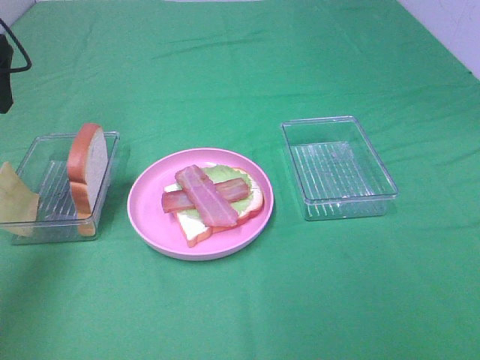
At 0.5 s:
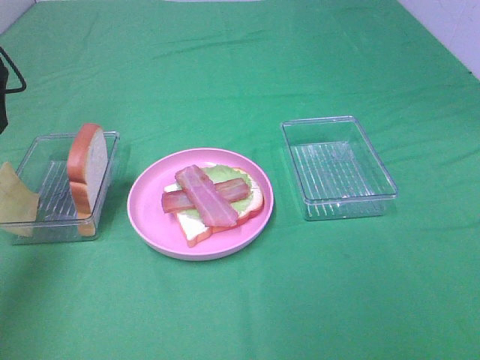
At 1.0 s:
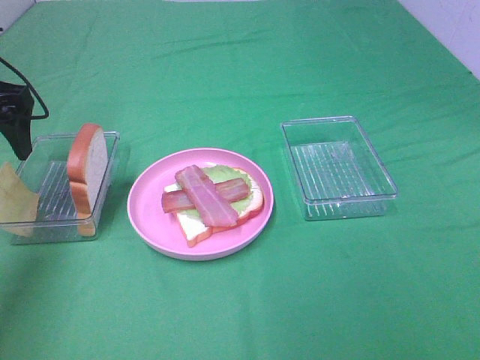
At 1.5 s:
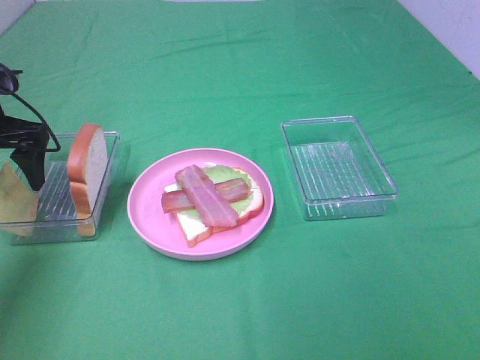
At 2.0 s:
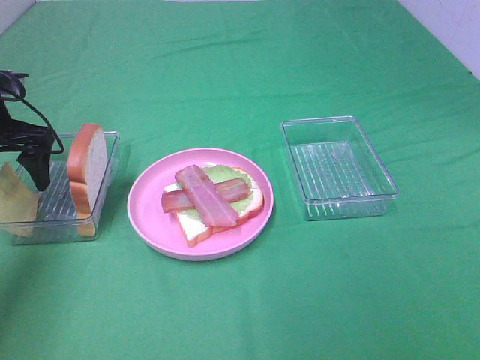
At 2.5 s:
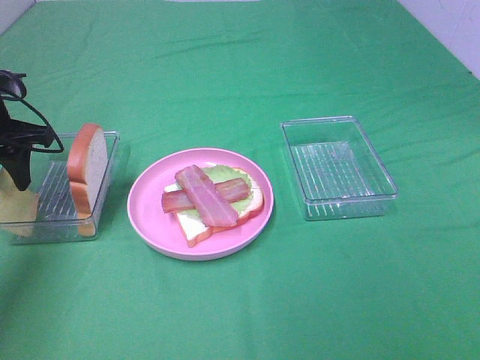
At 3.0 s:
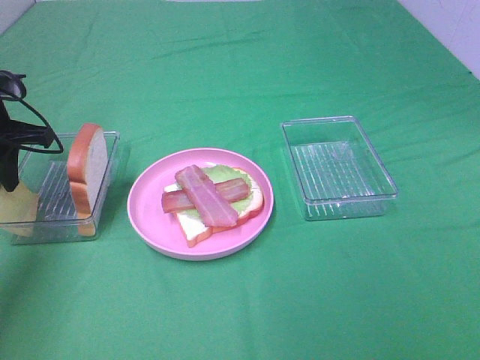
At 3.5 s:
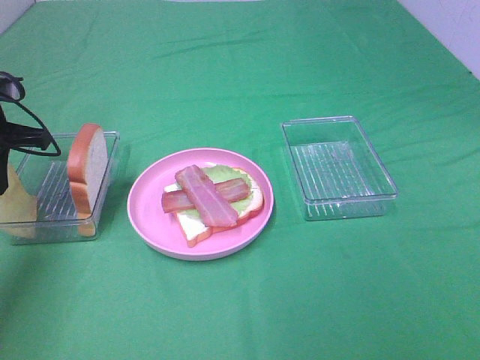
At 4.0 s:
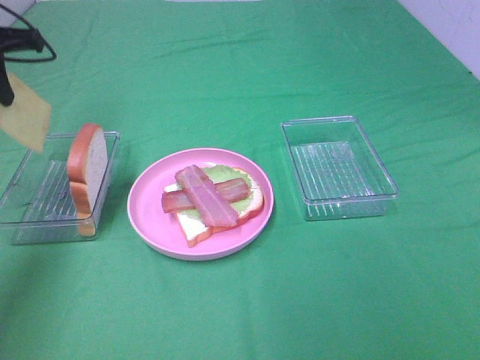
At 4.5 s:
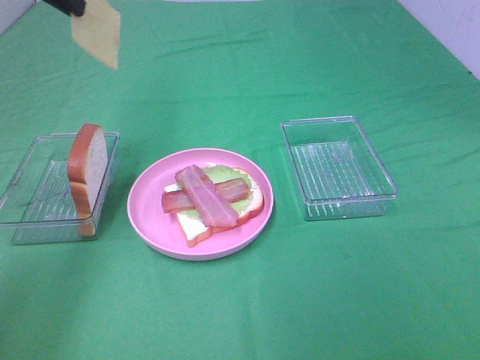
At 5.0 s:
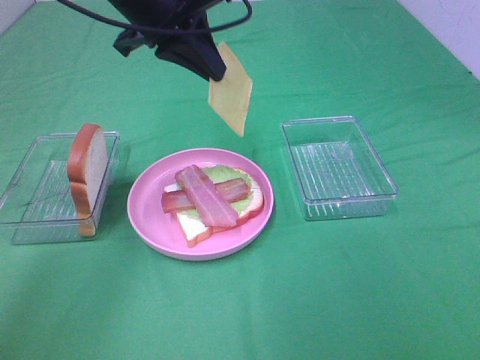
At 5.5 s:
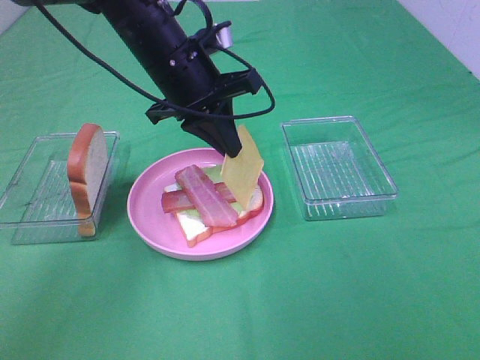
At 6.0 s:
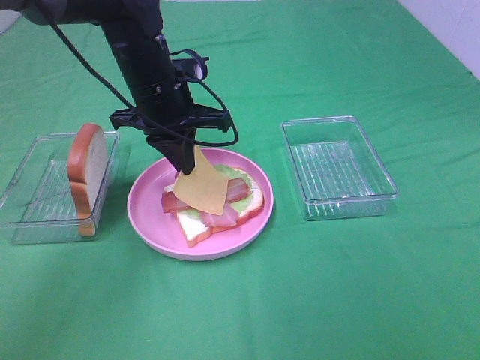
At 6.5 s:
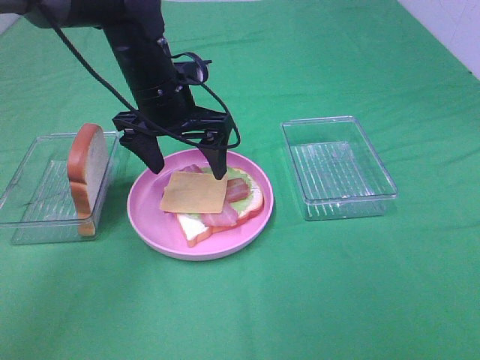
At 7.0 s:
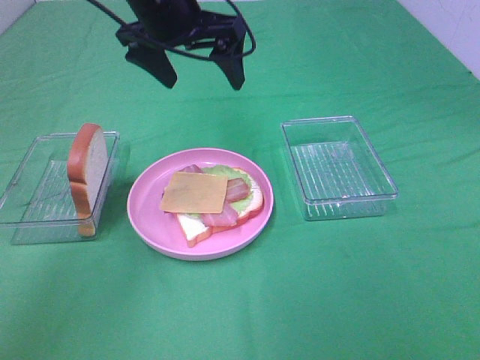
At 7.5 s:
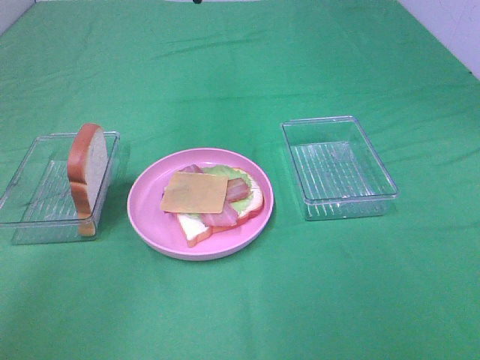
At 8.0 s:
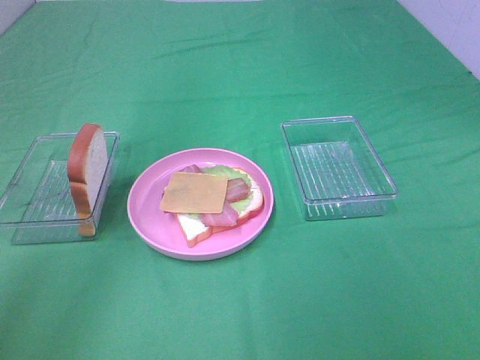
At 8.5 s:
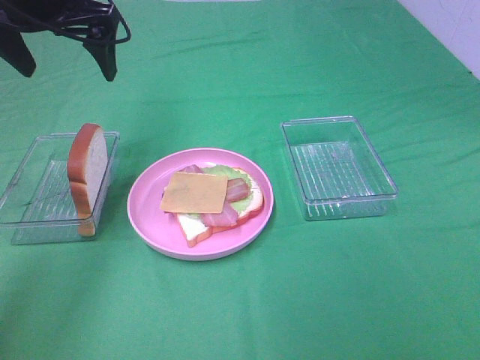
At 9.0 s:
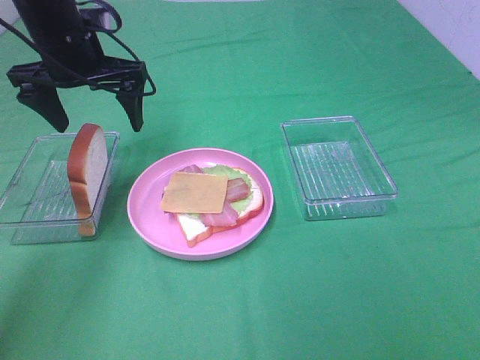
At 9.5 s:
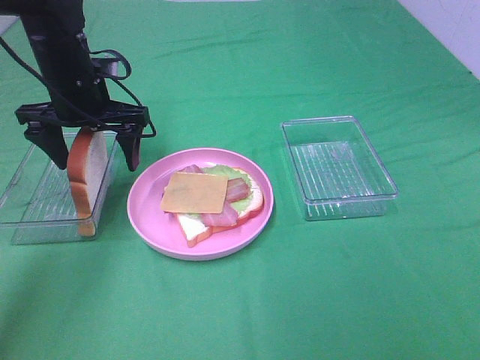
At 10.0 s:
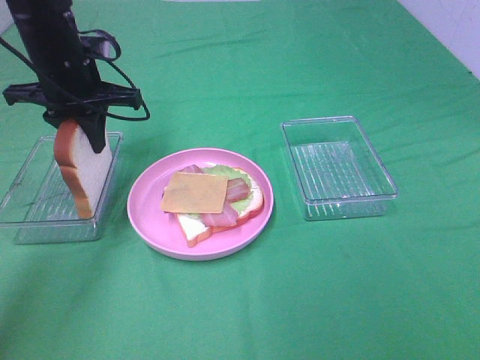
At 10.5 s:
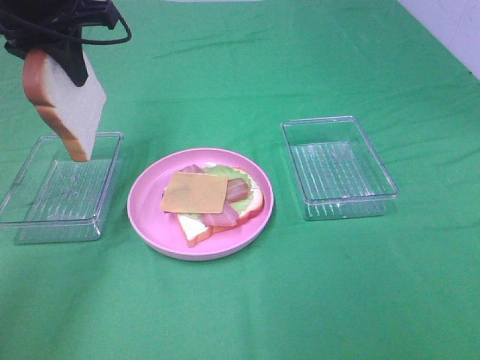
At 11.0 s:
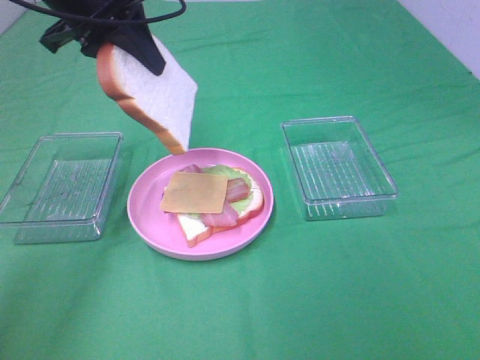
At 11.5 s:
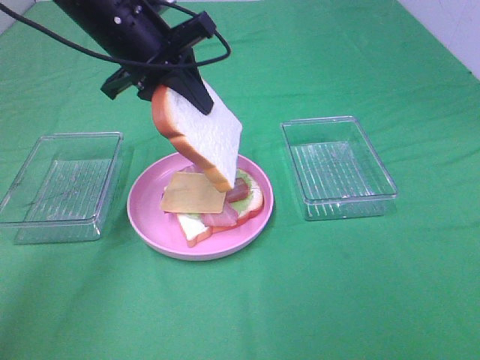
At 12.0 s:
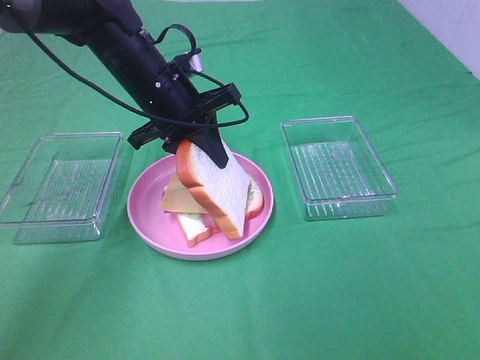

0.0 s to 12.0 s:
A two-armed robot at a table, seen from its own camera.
Task of the whole recording: Make sandwiches.
Step, 0.0 to 3.0 s: Left hand:grab the cheese slice.
Step, 3.5 to 6.5 s: Left hand:place the cheese slice on top of the bacon.
Step, 7.0 to 9.5 s: Left hand:grab the bread slice.
0.0 to 2.0 s: The left gripper goes roughly 10 cm downward.
2.0 to 4.0 s: The left gripper goes about 10 cm upward, and closes.
4.0 to 6.0 s: The left gripper shifts roughly 25 cm to the right and downward.
6.0 to 8.0 s: The left gripper shifts approximately 25 cm upward and to the left, and opens its fingers.
8.0 to 10.0 s: The left gripper is displaced downward by roughly 20 cm, and closes its fingers.
10.0 to 12.0 s: The left gripper heads to the right, covering some 10 cm, and moves roughly 10 cm upward and comes back.

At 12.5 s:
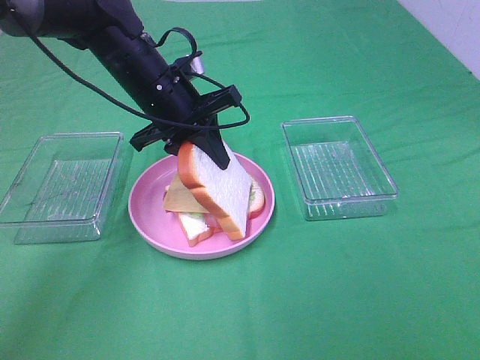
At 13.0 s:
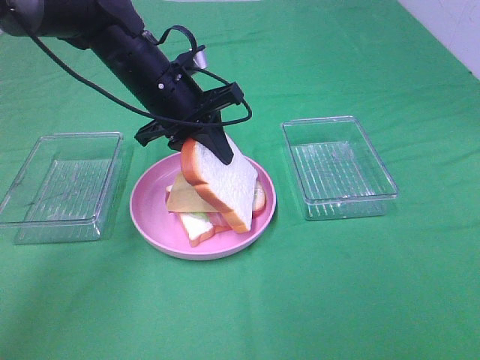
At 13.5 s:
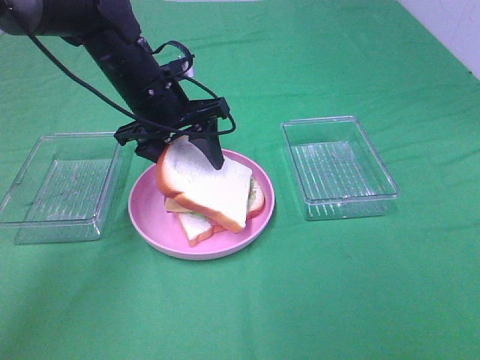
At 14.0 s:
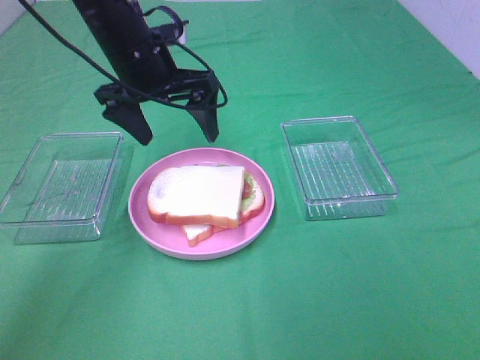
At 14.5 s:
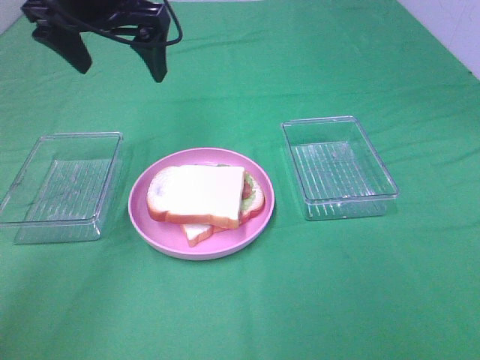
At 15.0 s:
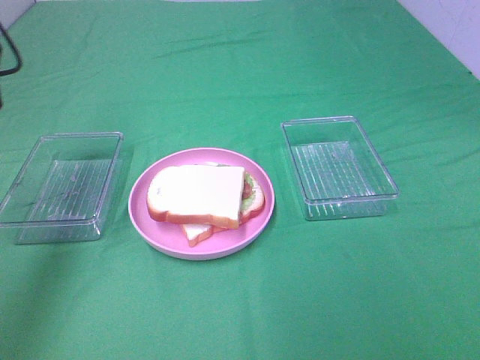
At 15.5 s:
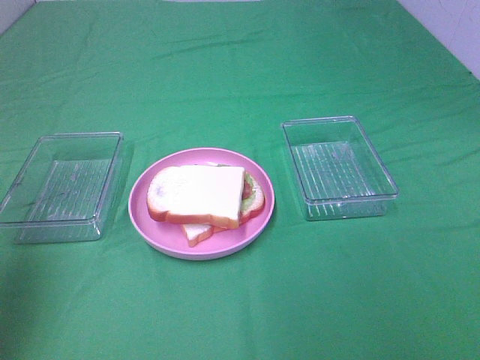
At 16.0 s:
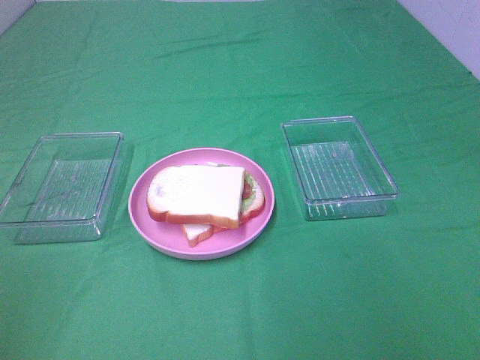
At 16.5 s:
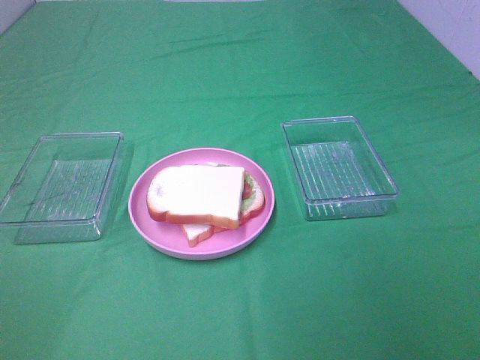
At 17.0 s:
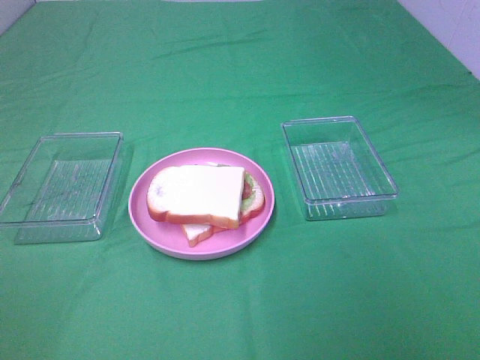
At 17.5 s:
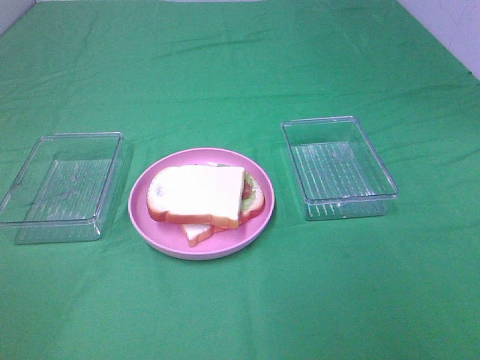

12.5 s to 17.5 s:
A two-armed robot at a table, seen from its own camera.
Task of the whole recording: Make sandwiches.
12.5 to 15.0 s: The left gripper goes some 25 cm to the left, upward and backward, and opens up.
15.0 to 17.5 s: The left gripper goes approximately 30 cm backward.

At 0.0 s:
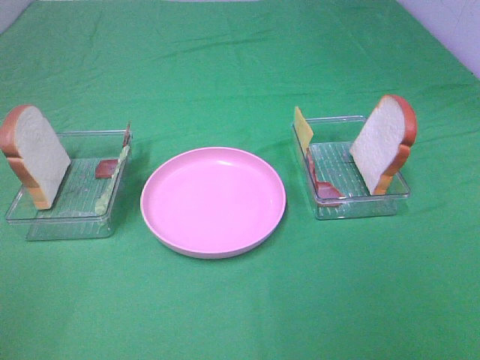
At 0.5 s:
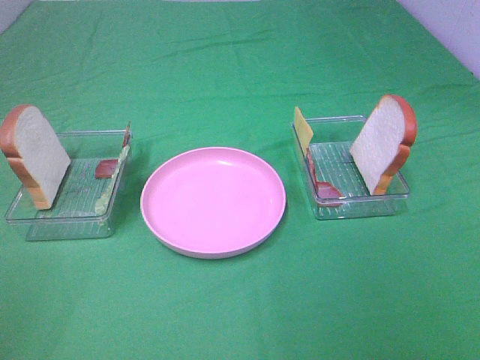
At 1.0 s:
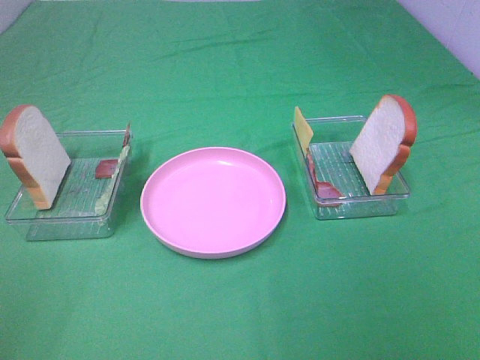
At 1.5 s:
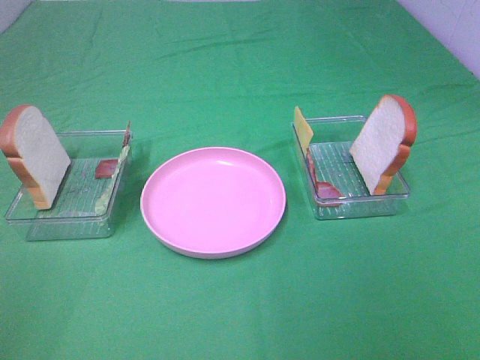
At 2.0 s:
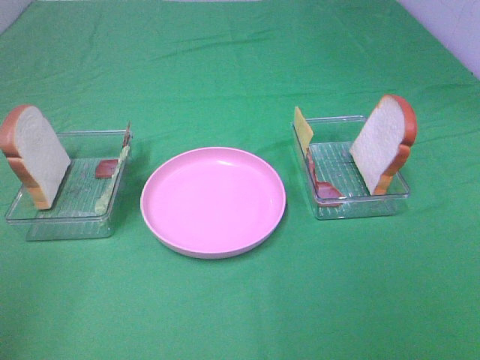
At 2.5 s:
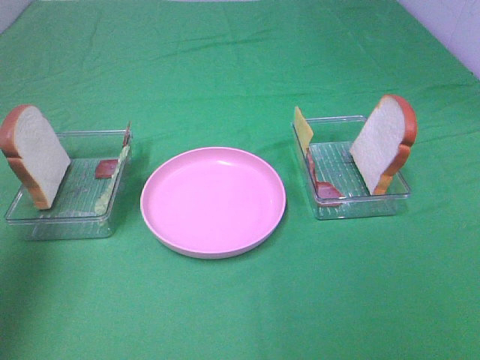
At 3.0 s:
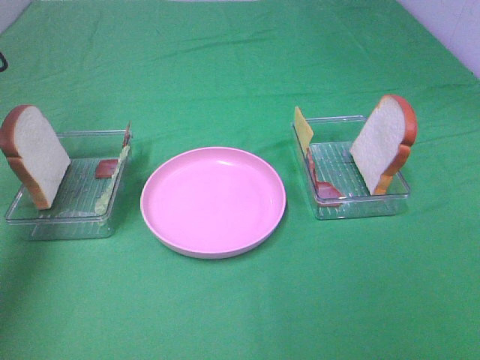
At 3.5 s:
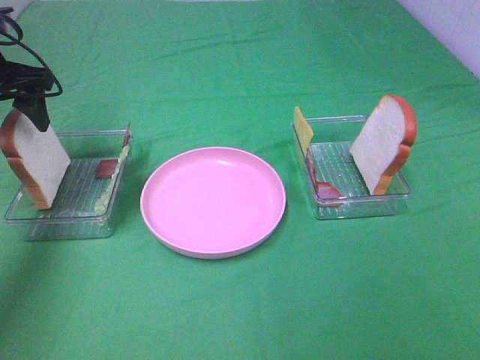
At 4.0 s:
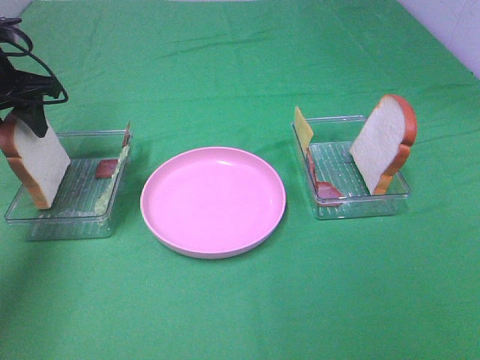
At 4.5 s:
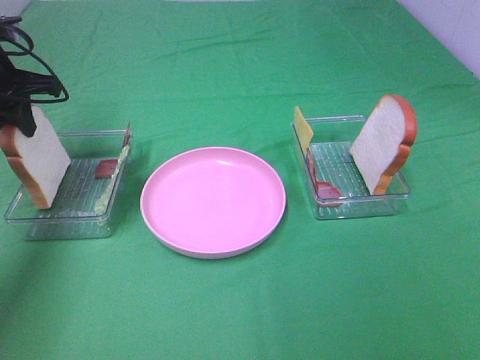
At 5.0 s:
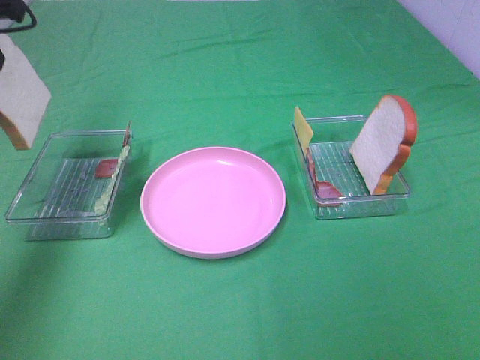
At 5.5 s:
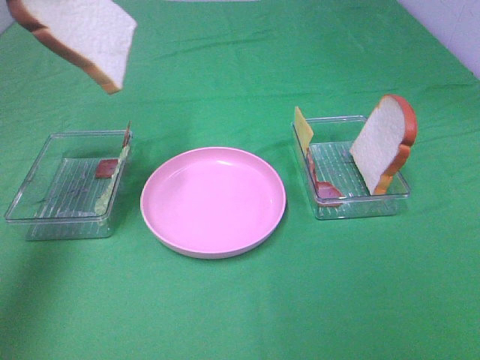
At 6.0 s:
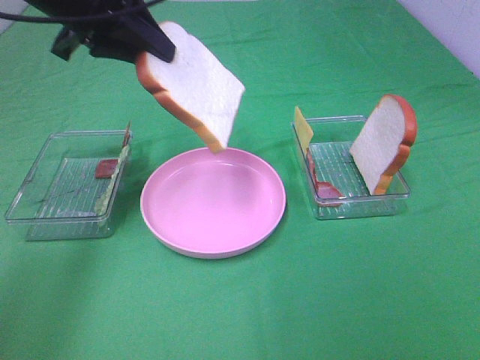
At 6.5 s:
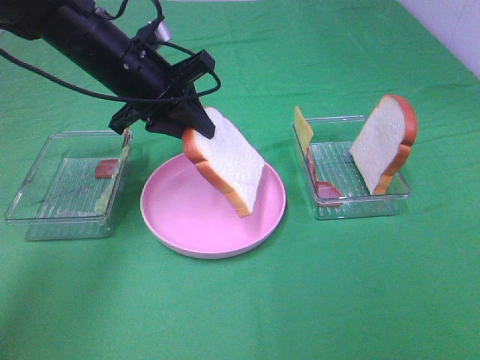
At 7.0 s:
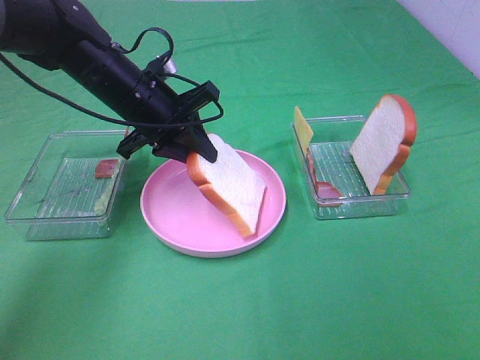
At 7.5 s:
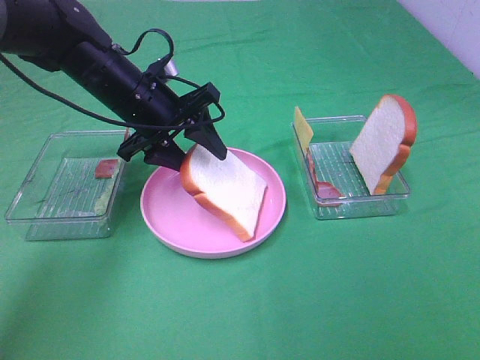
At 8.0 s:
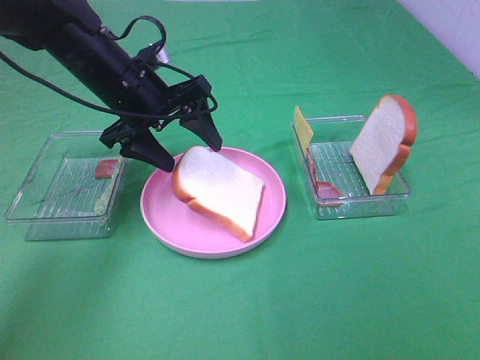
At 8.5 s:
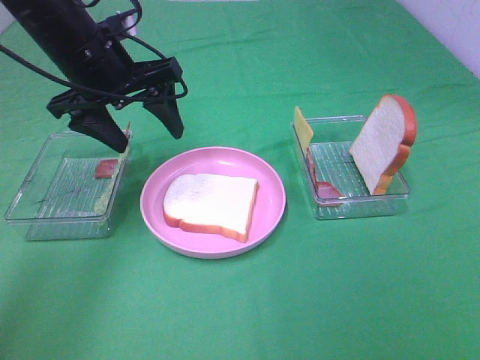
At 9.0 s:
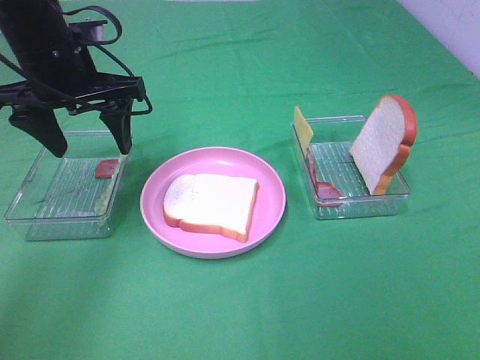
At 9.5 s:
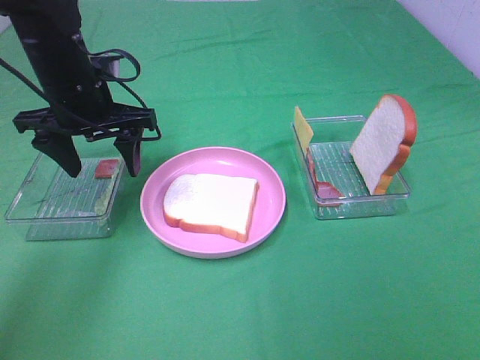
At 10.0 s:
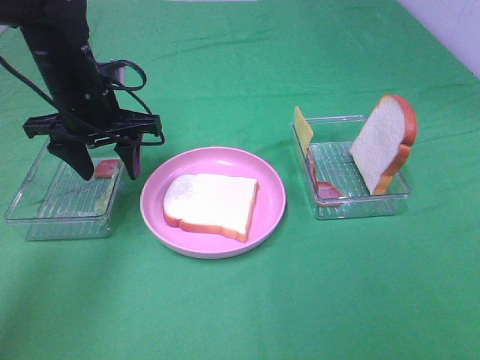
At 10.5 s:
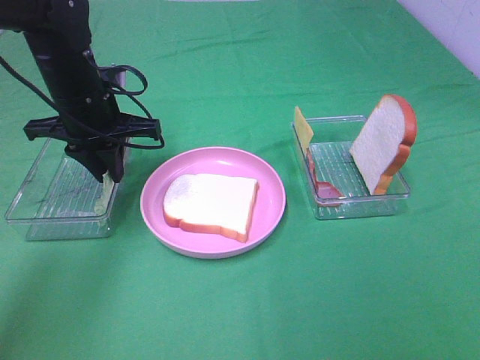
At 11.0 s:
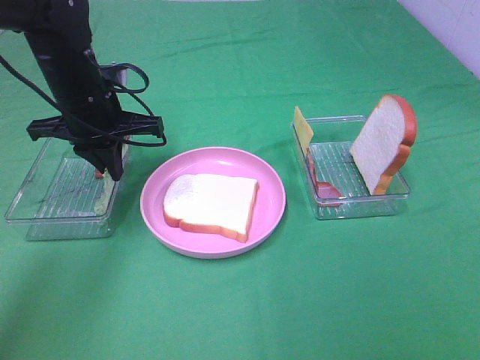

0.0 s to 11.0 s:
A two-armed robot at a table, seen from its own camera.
Task of the whole recording: Make sandwiches.
Step, 0.0 to 4.0 s: Left hand:grab the bread slice.
Step, 4.5 to 8.0 s: Left hand:place the bread slice on the plate.
Step, 8.5 to 10.5 s: Left hand:grab the lettuce slice.
2.0 to 3.5 s: The left gripper shifts roughly 35 cm forward.
3.5 to 5.5 s: The left gripper moves upward, roughly 15 cm, and closes.
5.5 to 7.5 s: The left gripper is displaced downward and to the right by approximately 25 cm, and opens its fingers.
7.5 to 9.0 s: The left gripper travels upward and to the left by about 10 cm.
9.0 to 11.0 s: The left gripper shifts about 5 cm downward, and closes up.
